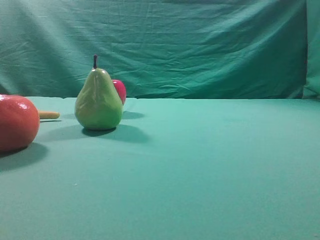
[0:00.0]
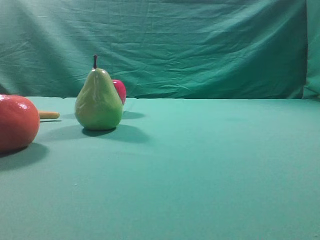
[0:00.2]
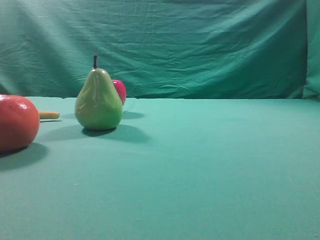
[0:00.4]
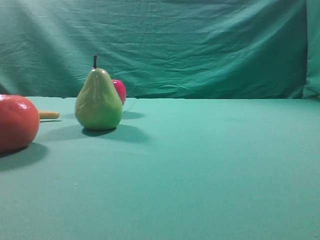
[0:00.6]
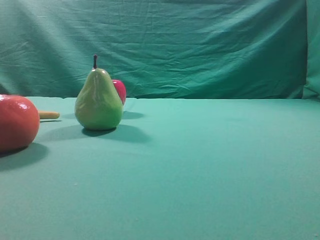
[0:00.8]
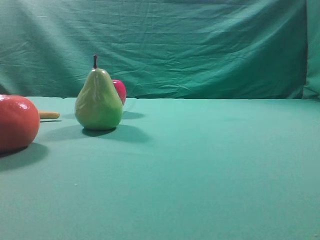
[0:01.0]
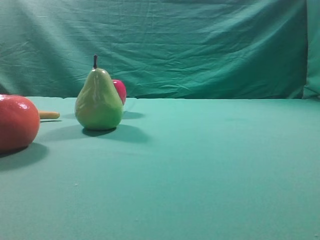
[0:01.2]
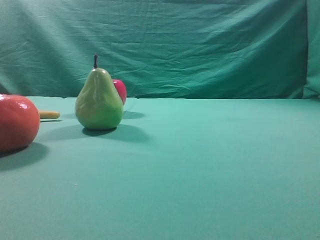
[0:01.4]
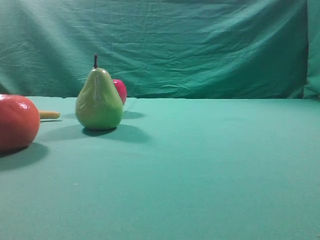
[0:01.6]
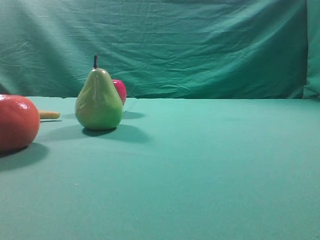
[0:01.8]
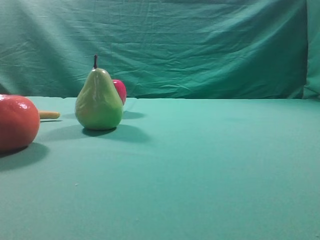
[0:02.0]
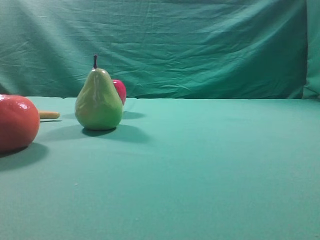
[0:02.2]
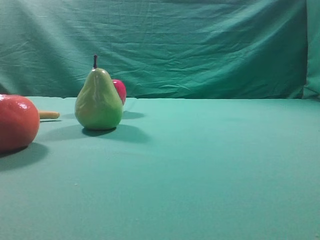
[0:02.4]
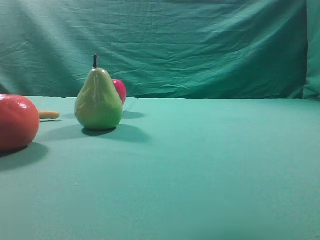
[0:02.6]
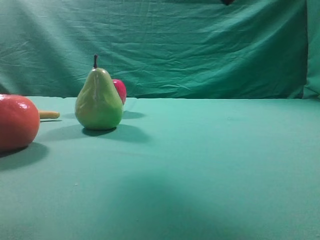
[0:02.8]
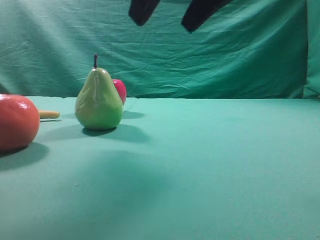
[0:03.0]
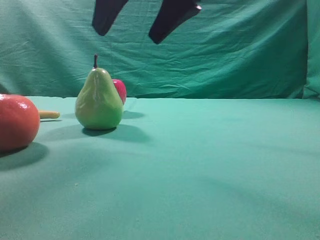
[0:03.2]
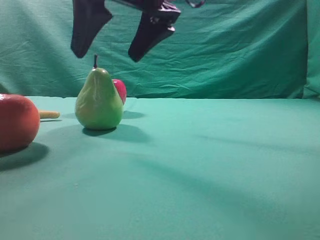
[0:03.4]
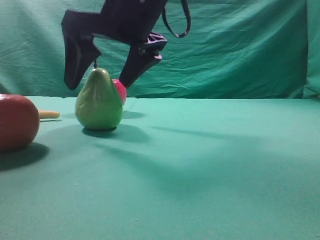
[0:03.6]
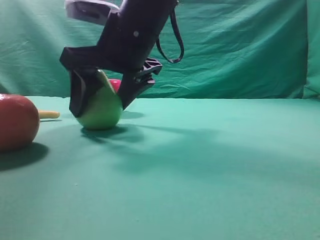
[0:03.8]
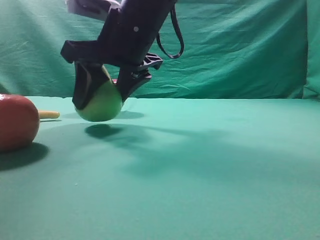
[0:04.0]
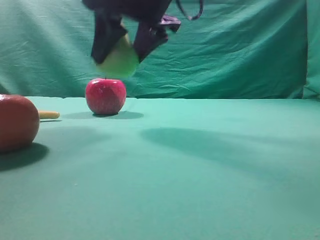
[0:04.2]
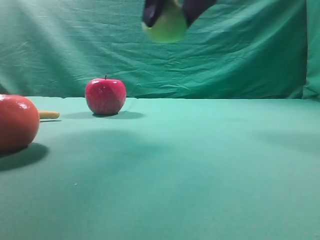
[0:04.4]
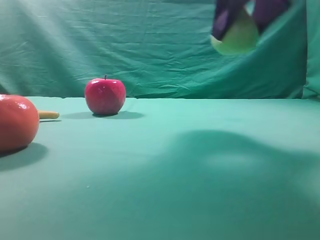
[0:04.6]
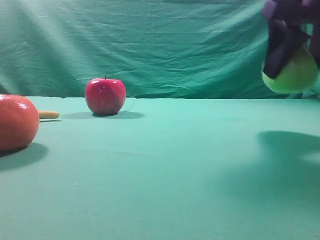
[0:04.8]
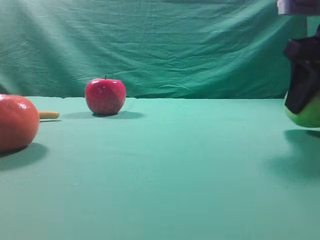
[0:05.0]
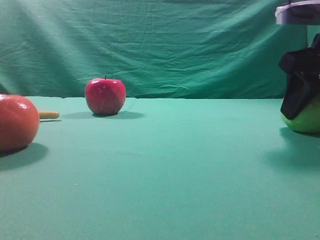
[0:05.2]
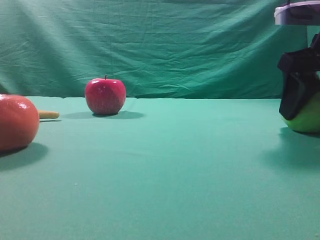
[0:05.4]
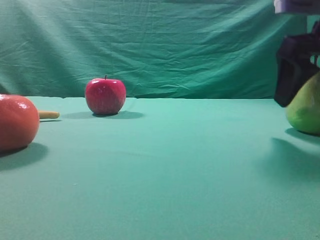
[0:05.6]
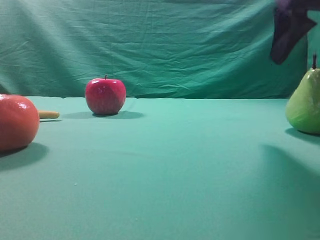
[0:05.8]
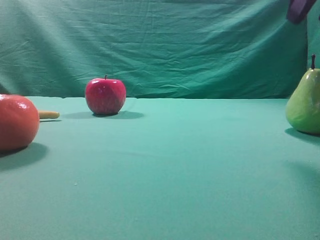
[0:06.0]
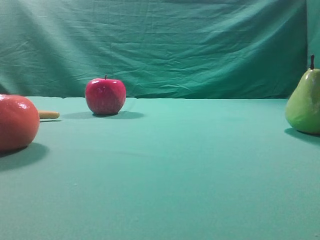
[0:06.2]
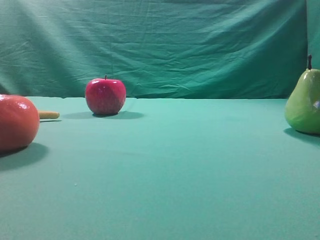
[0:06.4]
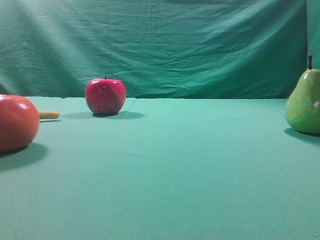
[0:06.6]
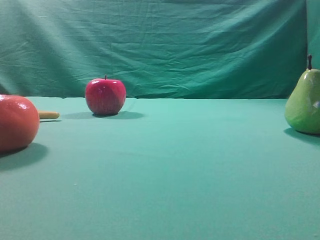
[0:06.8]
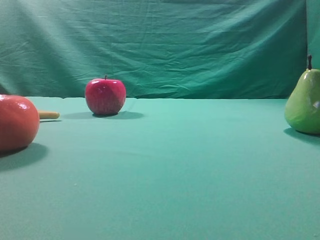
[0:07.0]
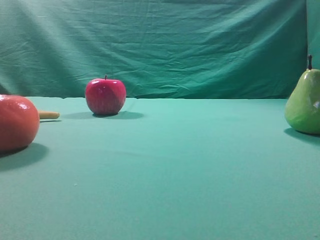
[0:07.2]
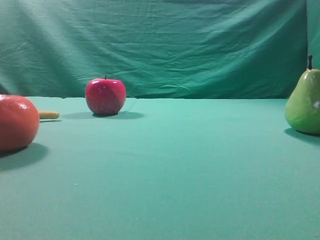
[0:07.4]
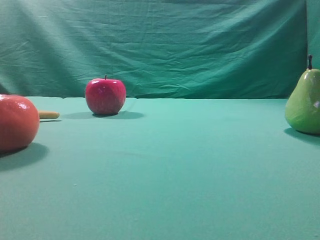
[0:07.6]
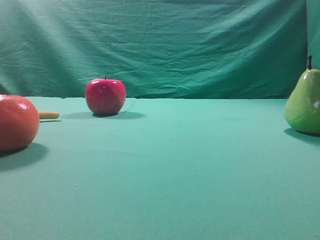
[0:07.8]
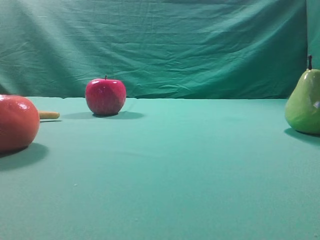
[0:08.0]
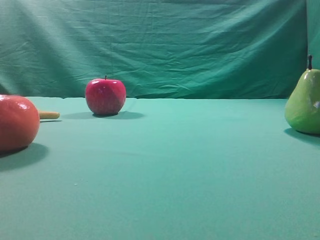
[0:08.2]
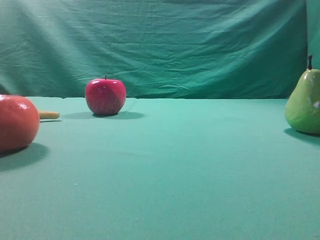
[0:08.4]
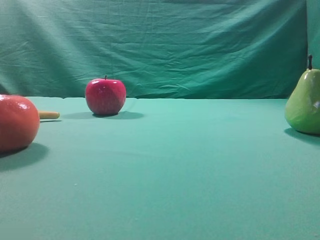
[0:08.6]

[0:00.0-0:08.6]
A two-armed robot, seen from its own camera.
Task of the whole recording: Grasp the pear and place it on one side of the table.
Step, 0:00.0 to 0:04.0: Grasp the high-fiber fruit.
Step, 0:04.2 to 0:05.8: Place it on the right side of the table.
